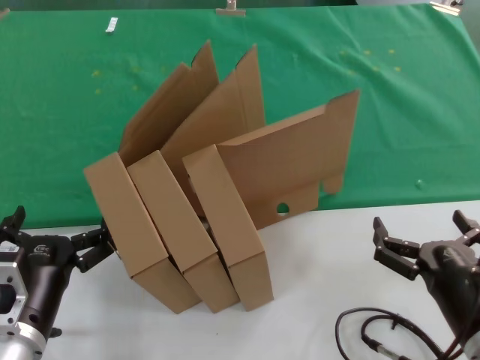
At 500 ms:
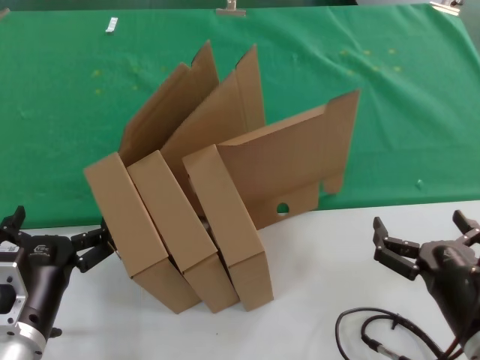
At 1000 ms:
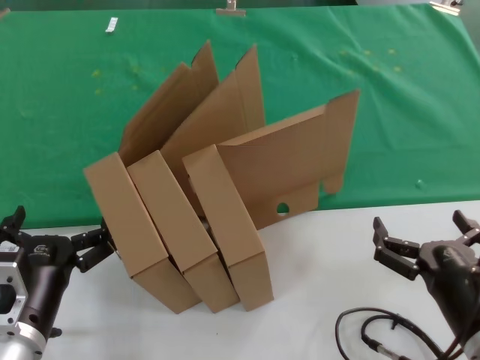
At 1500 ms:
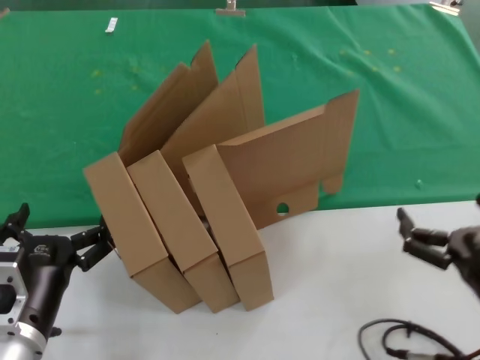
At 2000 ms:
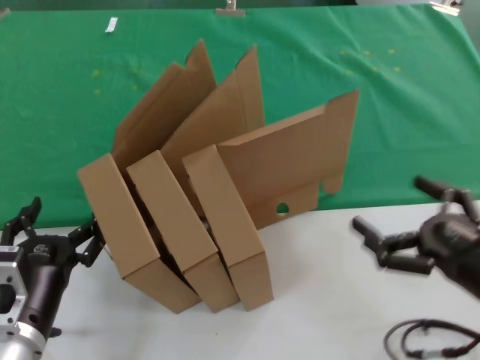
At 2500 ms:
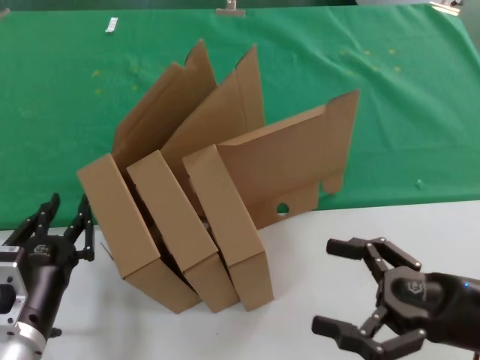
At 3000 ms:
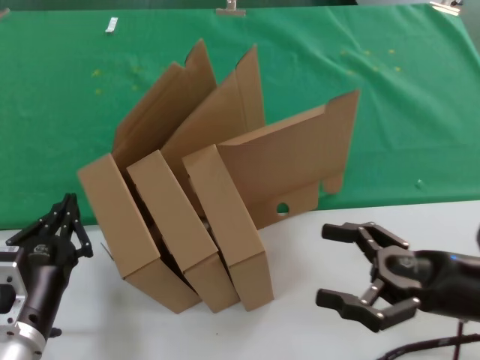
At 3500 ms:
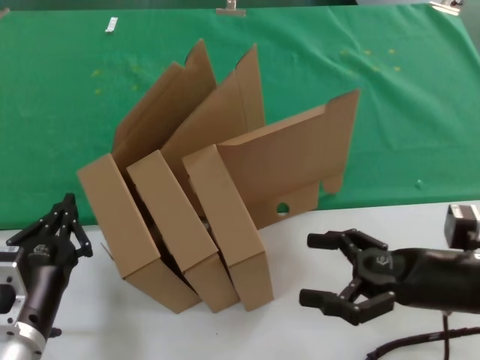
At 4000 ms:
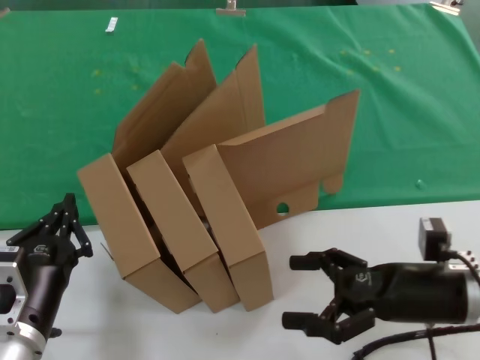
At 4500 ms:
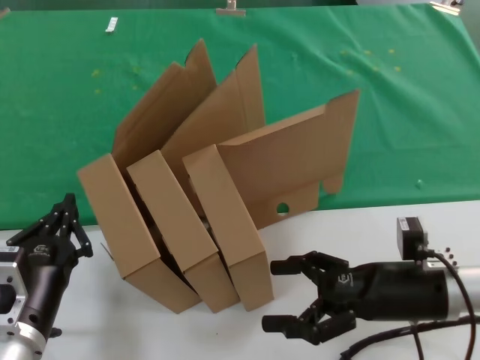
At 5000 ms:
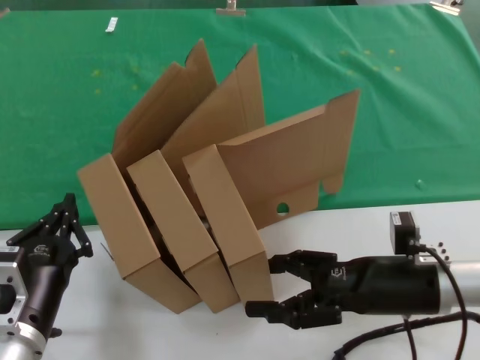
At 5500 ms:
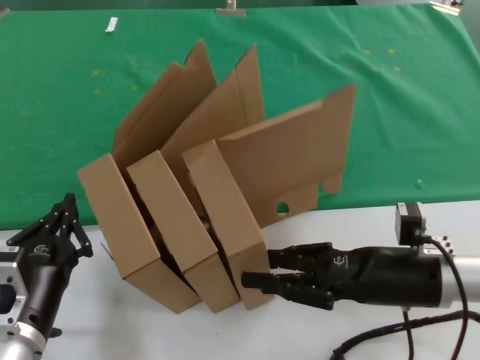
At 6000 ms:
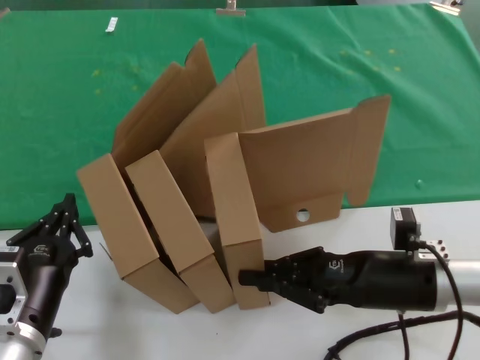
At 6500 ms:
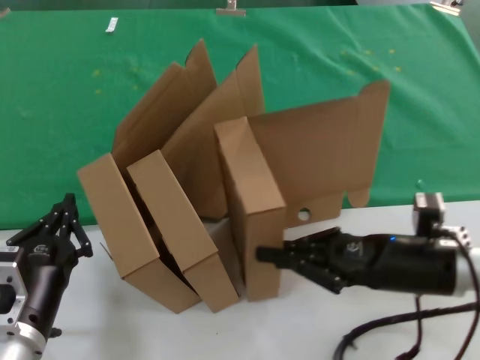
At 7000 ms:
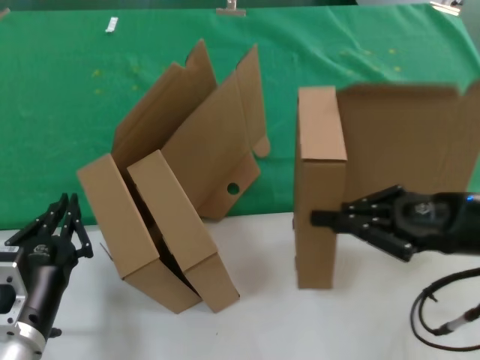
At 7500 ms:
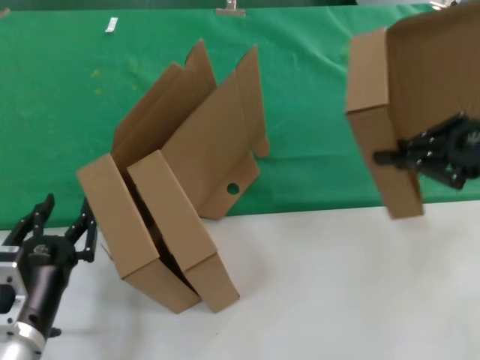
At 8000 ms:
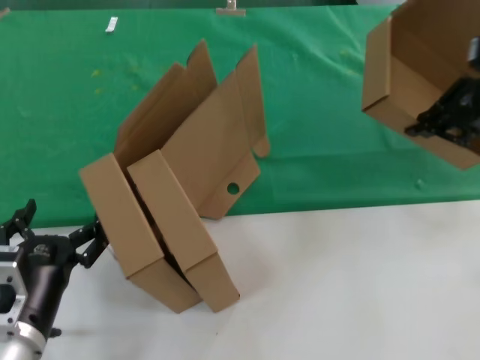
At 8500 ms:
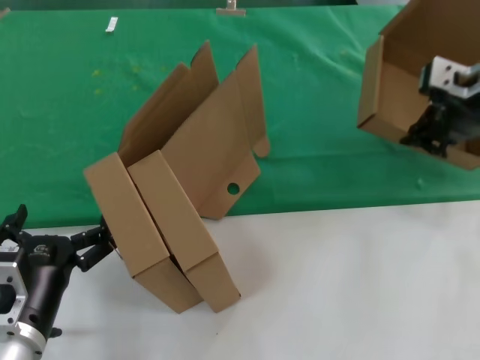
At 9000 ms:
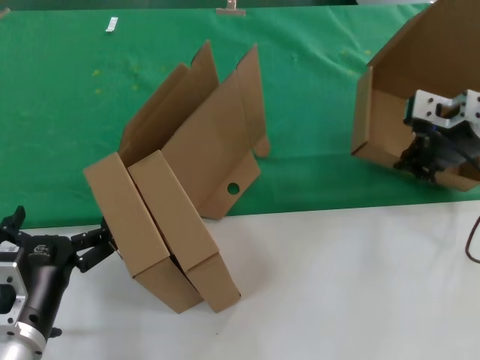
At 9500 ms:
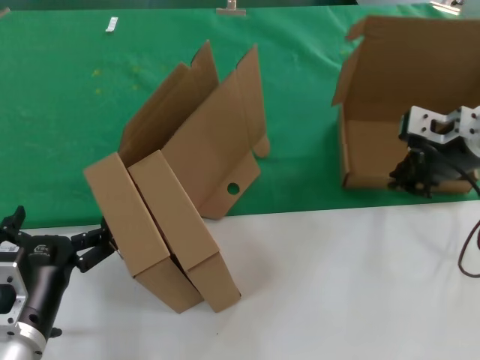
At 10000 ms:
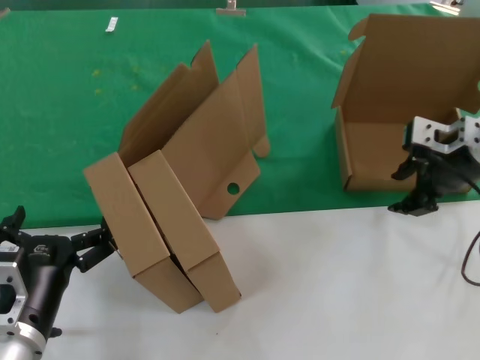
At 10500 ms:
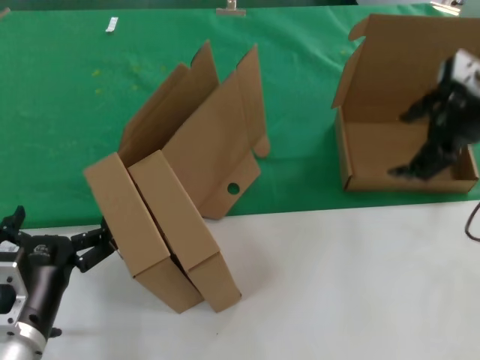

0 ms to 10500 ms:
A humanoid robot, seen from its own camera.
Task of the whole recording: pick up the paper box and put it at the back.
Step, 0 ms to 6000 ms: Grasp the paper box.
Step, 6500 ms to 10000 ms: Place the paper box on the table.
0 ms to 2000 ms: The right hand moves to the right and upward, about 10 cm.
2000 ms to 4000 ms: The right hand heads forward, covering some 10 cm.
4000 ms to 6500 ms: The hands make only small movements.
6500 ms to 8500 ms: The right hand travels upward by roughly 25 cm.

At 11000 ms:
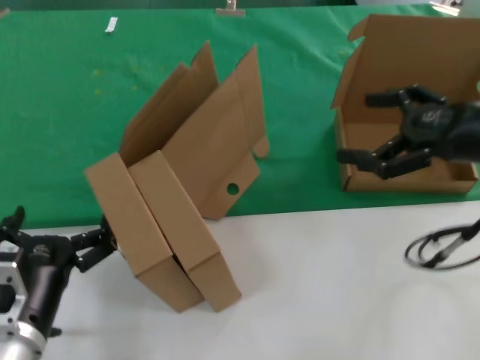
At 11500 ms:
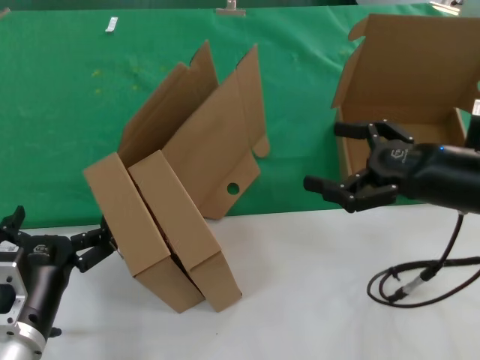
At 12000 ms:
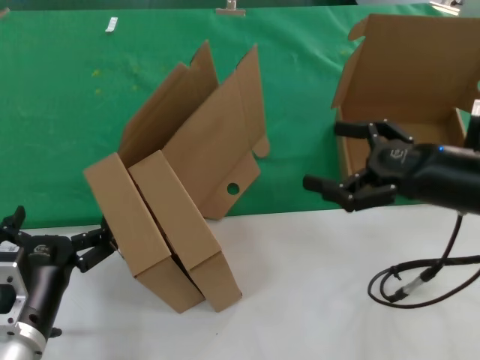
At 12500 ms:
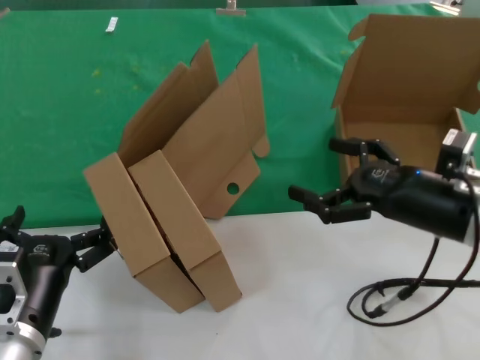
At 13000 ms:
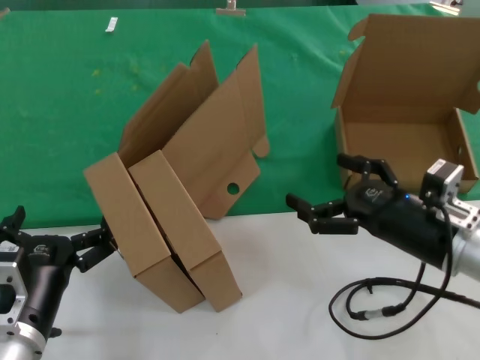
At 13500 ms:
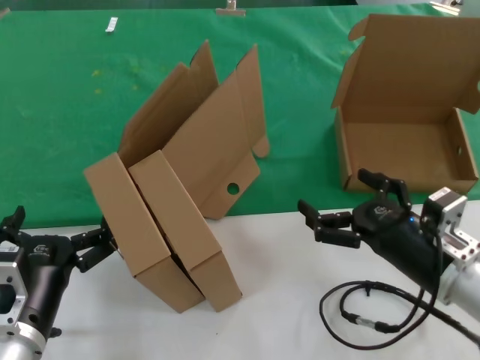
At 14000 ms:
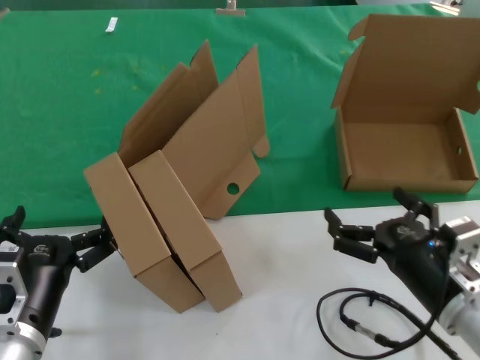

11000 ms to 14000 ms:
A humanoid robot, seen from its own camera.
Task of the whole recording: pick up the paper box and put it at the back.
11000 ms to 12500 ms: The right hand is displaced downward and to the left by roughly 15 cm.
12500 ms to 14000 ms: The right hand goes approximately 15 cm downward and backward.
